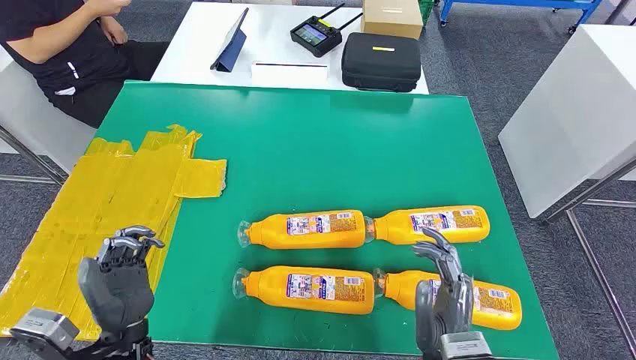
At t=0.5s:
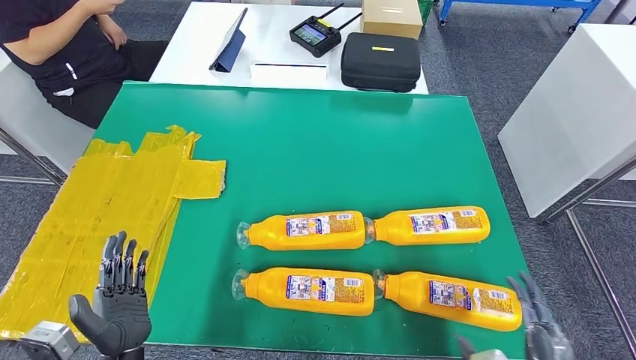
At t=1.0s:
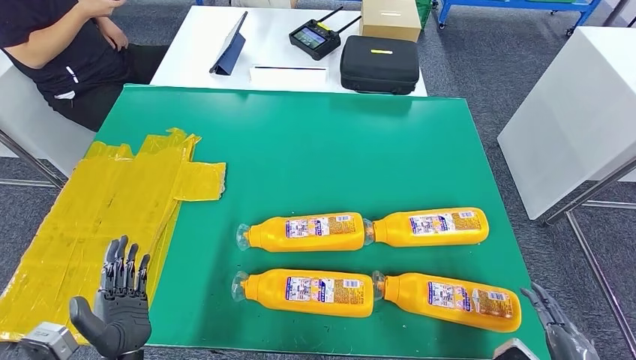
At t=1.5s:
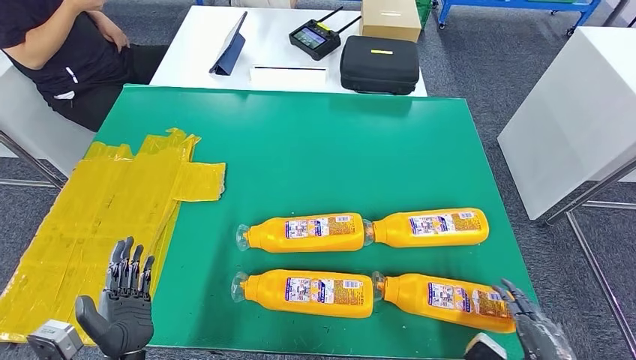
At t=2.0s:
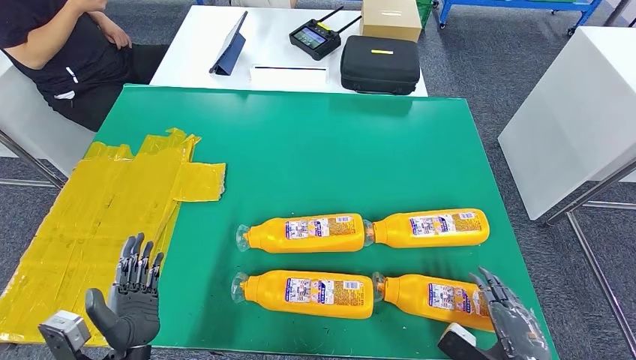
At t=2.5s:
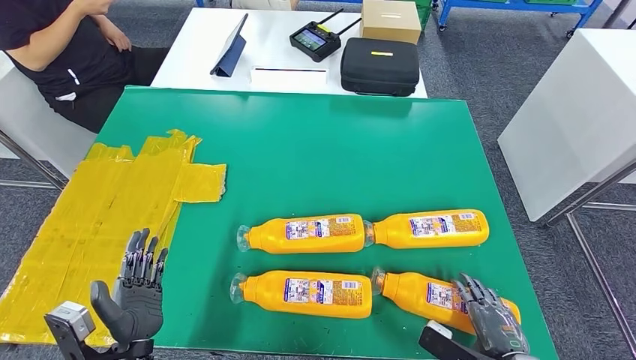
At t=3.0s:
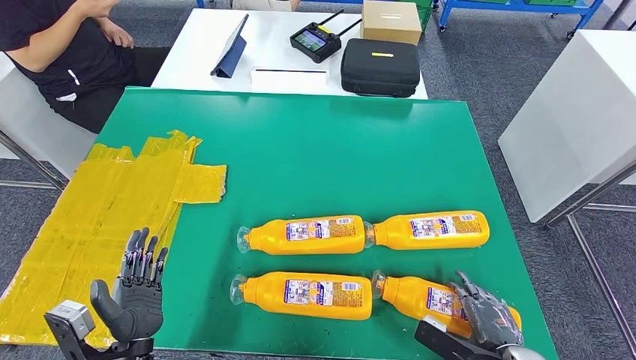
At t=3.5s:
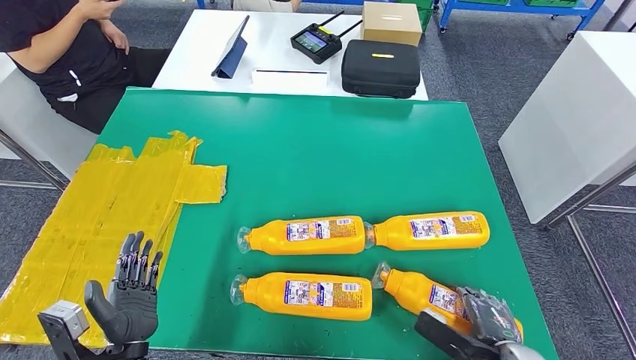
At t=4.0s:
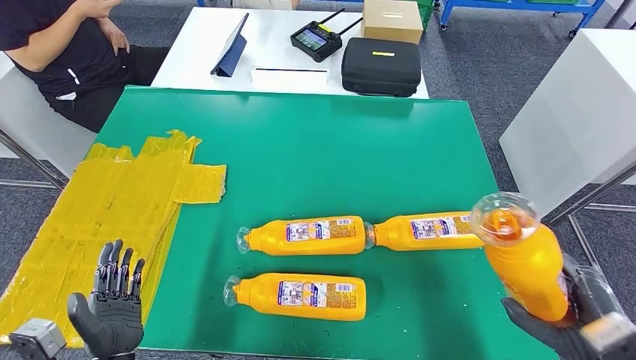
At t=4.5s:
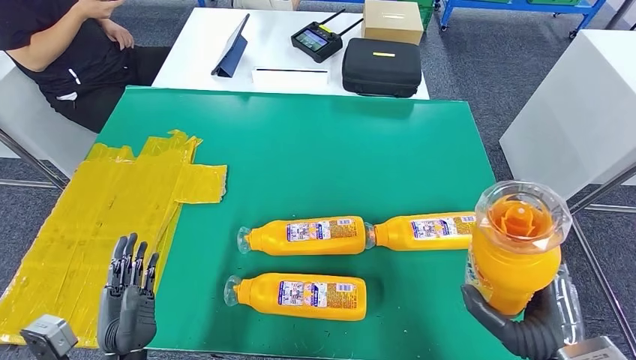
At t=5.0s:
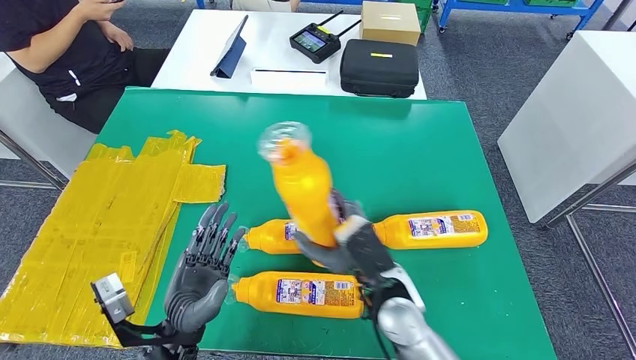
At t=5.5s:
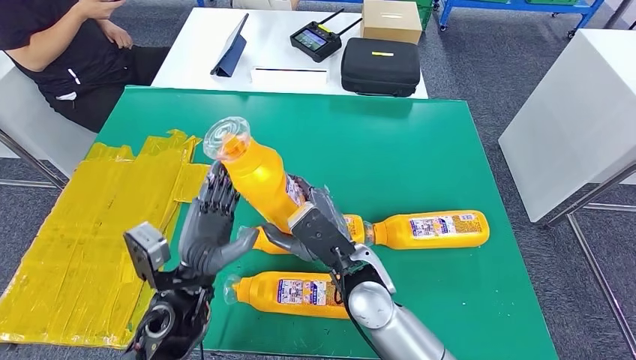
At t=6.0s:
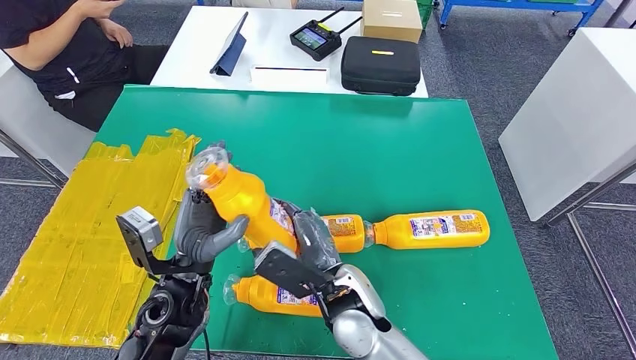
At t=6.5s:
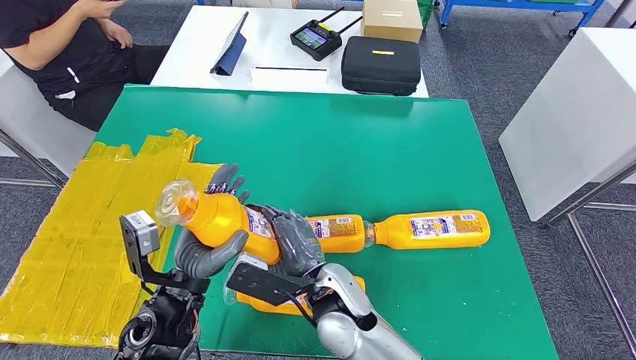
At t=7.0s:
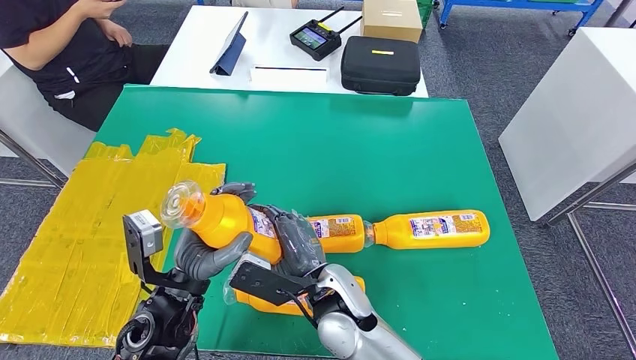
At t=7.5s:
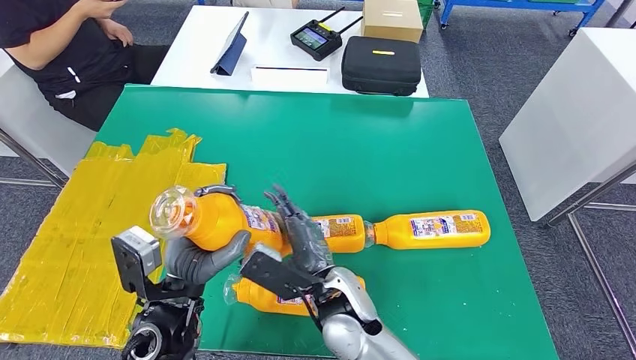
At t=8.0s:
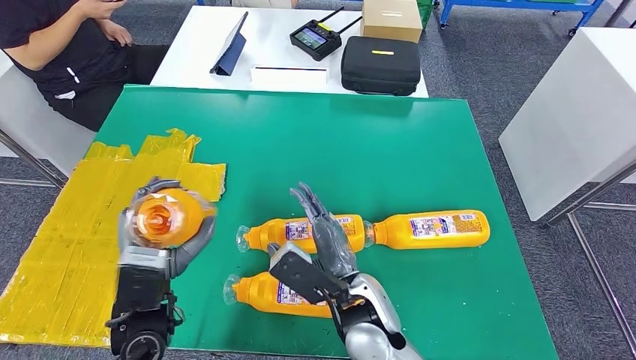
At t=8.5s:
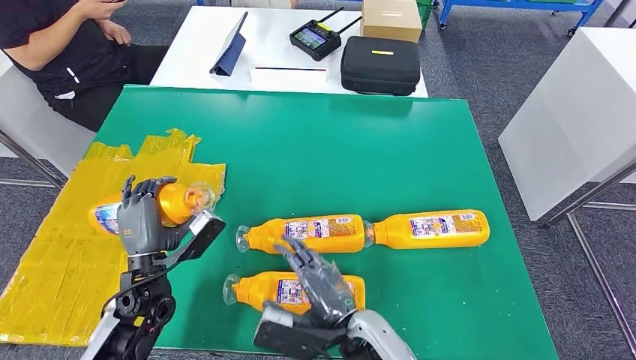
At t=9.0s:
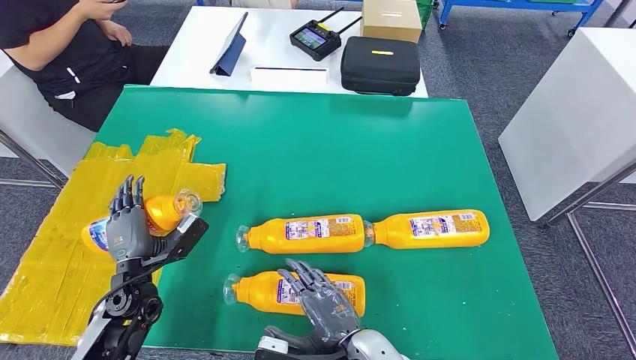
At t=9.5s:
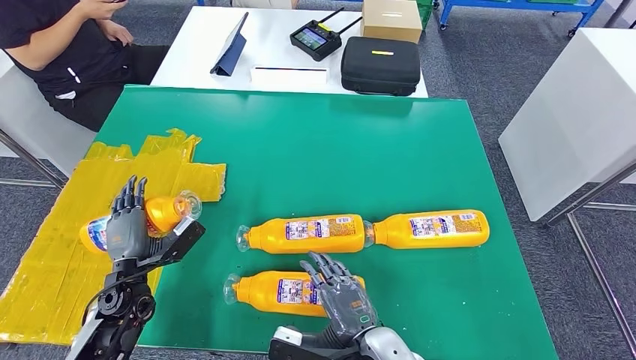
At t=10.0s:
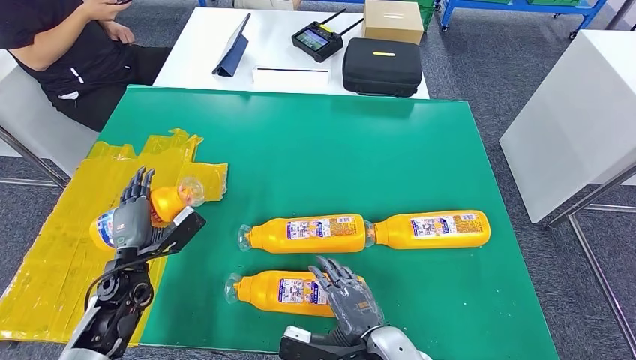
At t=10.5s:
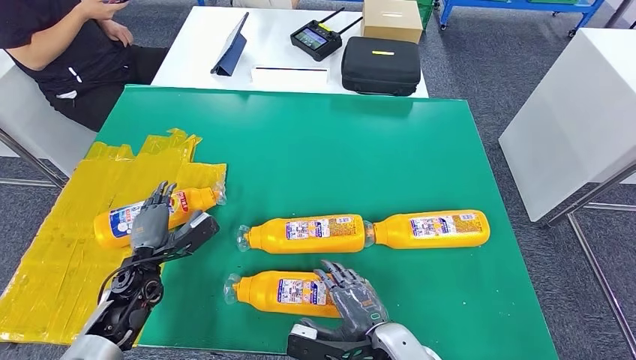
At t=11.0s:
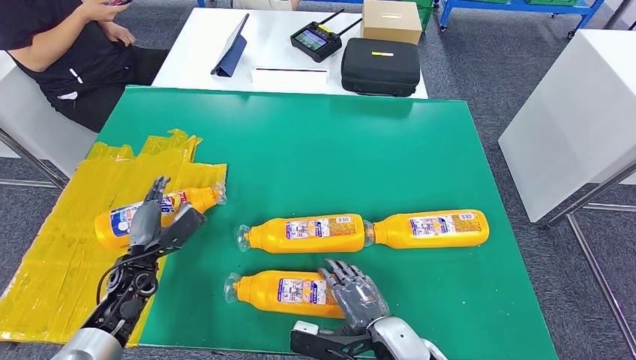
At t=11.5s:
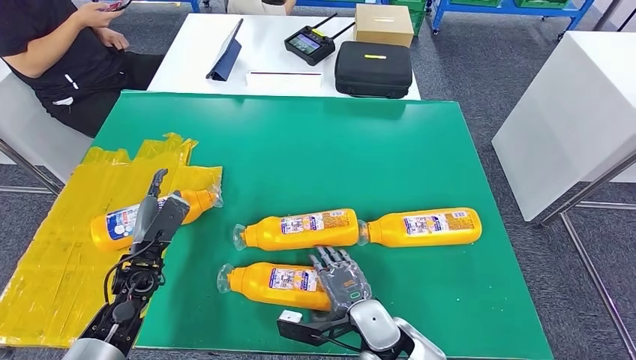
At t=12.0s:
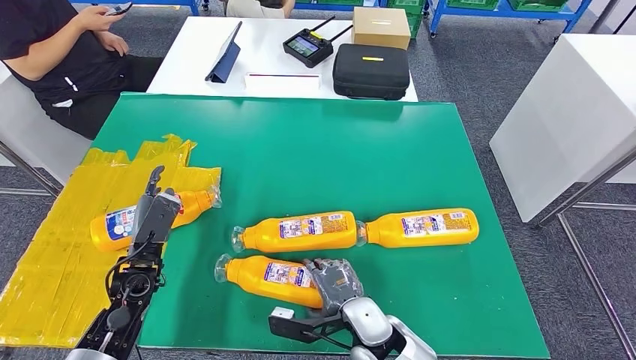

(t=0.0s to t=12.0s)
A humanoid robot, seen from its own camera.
Step, t=0.0s - t=4.5s: Take the fast-moving consumer goods bottle from the table.
t=6.0s - t=8.0s: The left hand changes place by some 5 cm.
t=8.0s - t=10.0s: The right hand goes roughly 10 cm backward, downward and to the right; the left hand is displaced downward, to the left and forward by roughly 15 cm.

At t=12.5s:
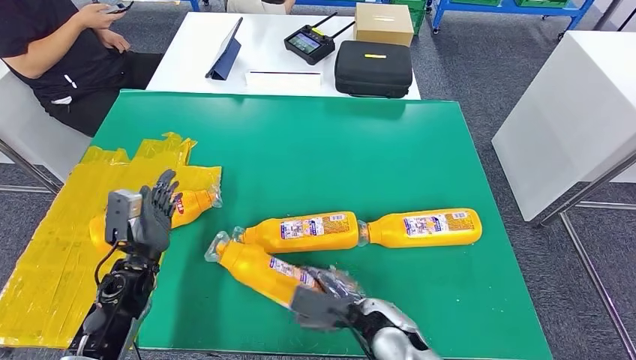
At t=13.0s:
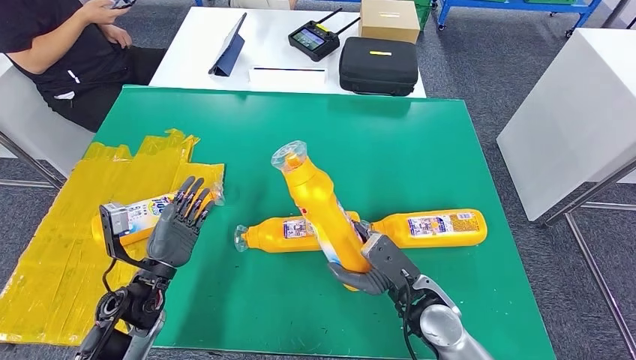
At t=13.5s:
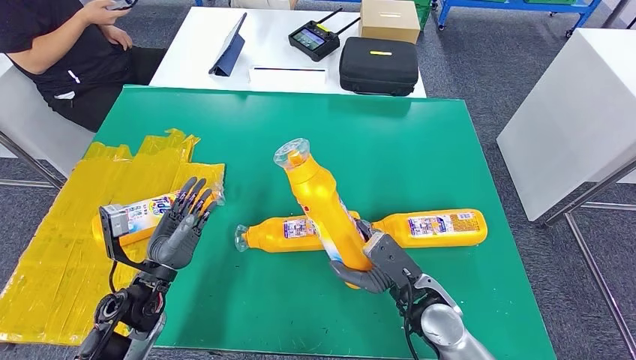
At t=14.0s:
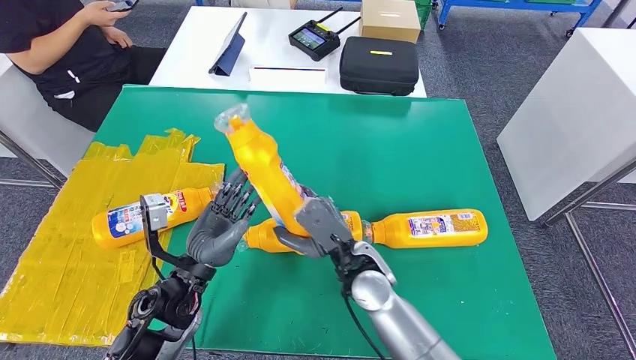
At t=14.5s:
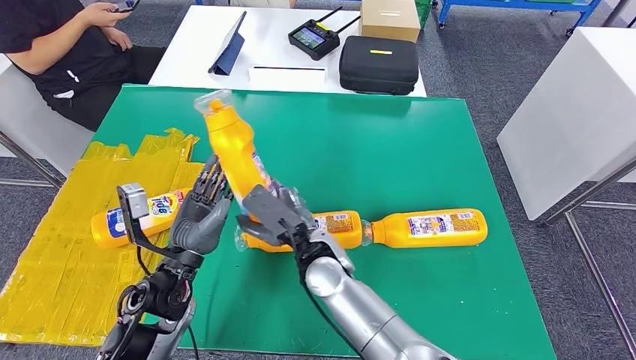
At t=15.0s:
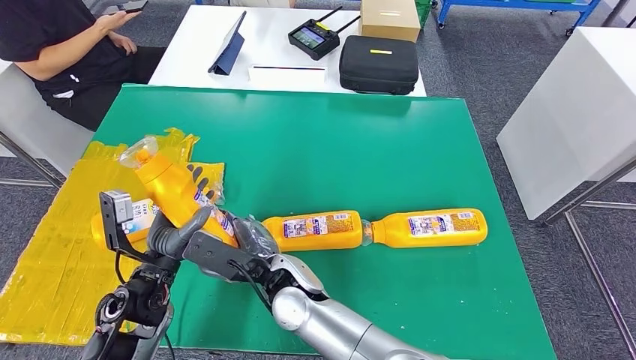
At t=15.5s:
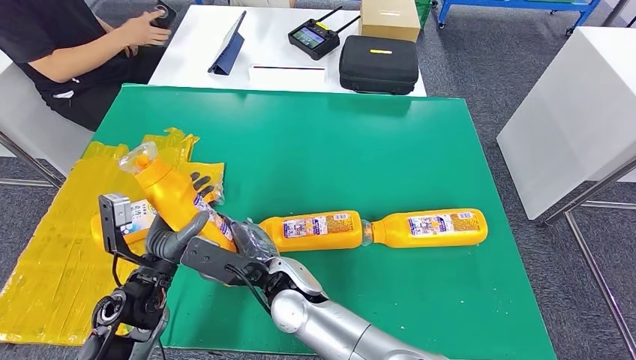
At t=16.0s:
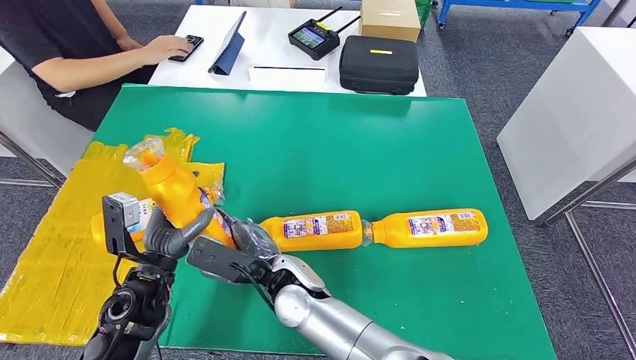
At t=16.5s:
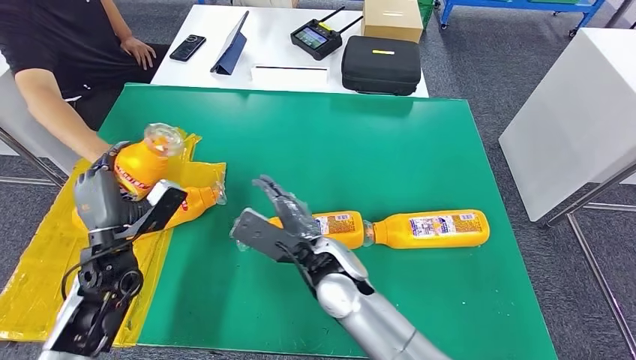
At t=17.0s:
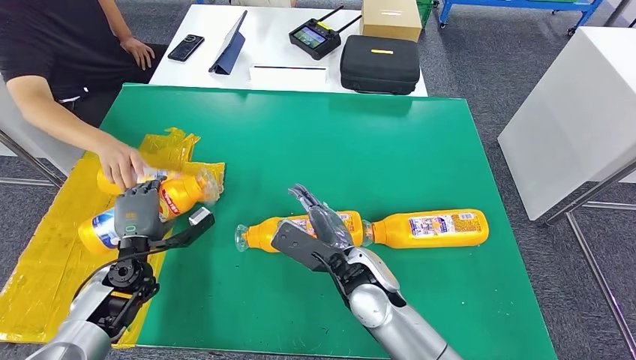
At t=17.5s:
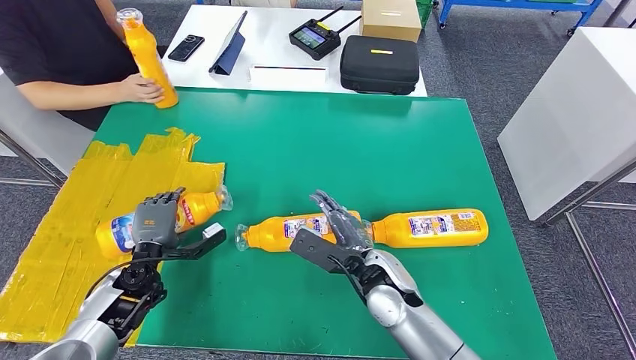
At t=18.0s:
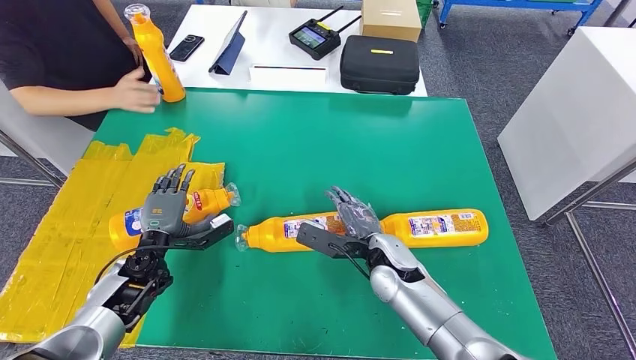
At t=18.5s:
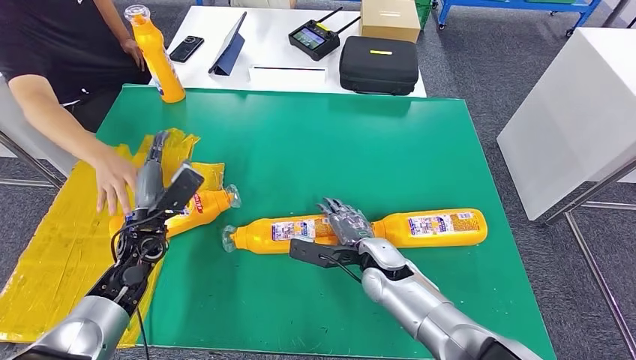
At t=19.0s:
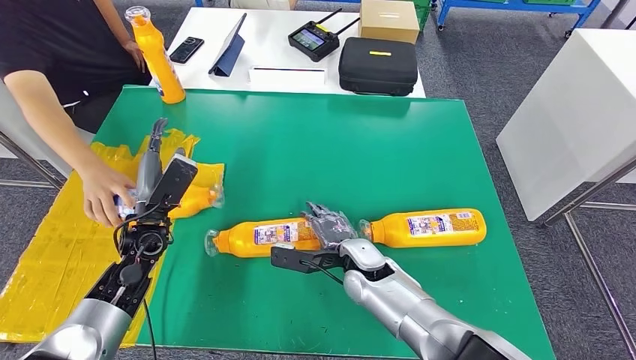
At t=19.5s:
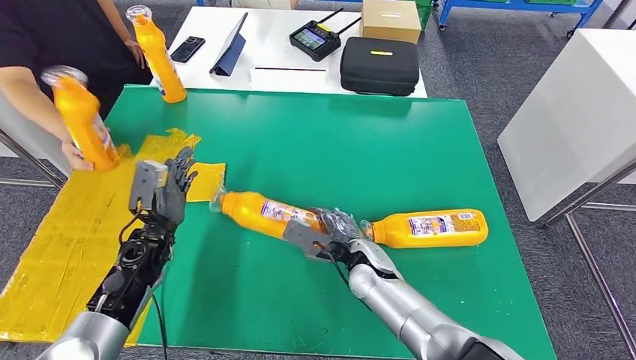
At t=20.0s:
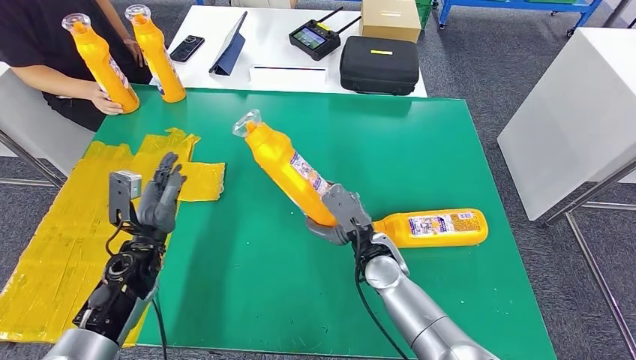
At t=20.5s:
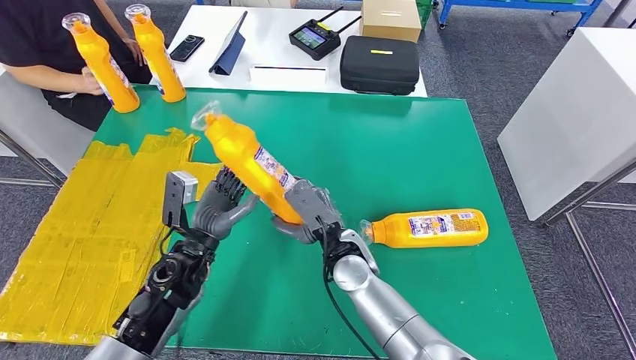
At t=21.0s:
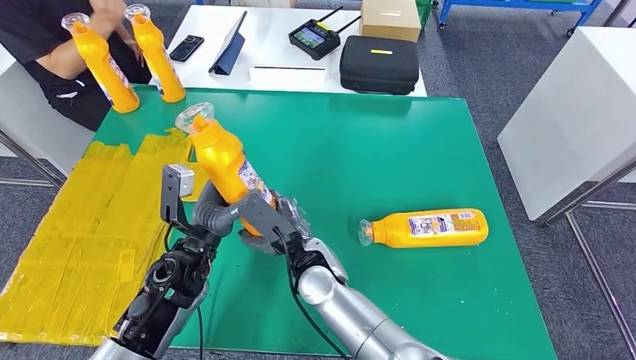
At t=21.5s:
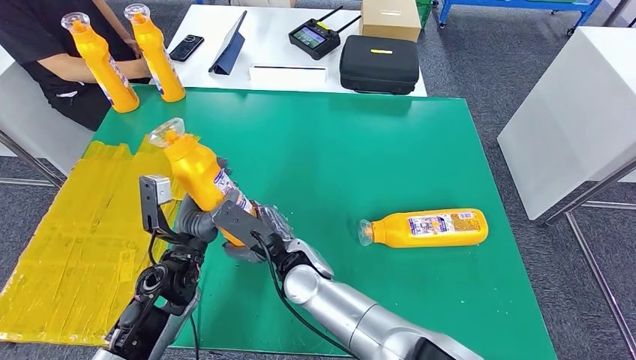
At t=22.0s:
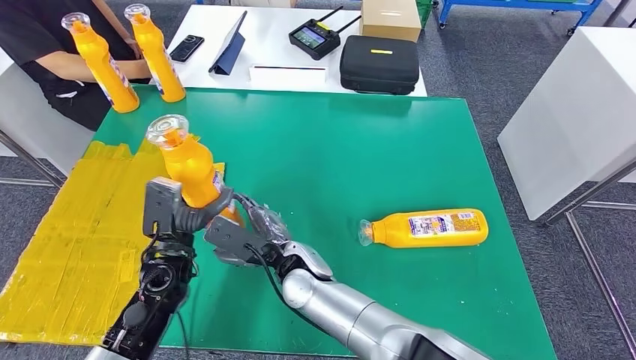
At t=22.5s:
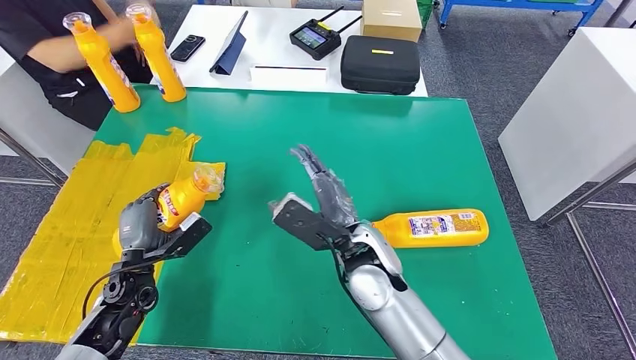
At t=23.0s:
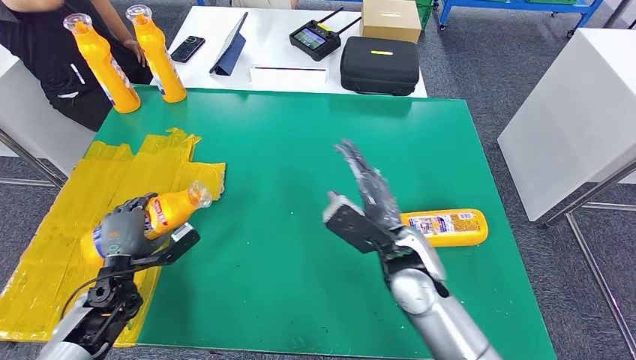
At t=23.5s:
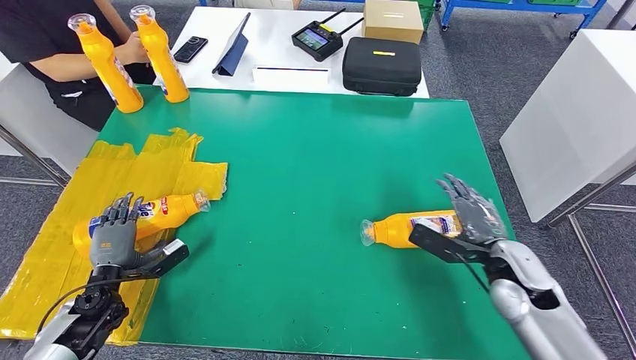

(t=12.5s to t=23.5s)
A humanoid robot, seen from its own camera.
Step, t=13.0s - t=16.0s: Pick up the fast-moving consumer goods bottle from the table.
Step, t=16.5s - t=19.0s: Flip the fast-moving consumer goods bottle to the front side.
Step, t=19.5s - t=21.5s: Pick up the fast-moving consumer goods bottle from the table.
t=14.5s - t=16.0s: The left hand moves to the left, approximately 5 cm.
